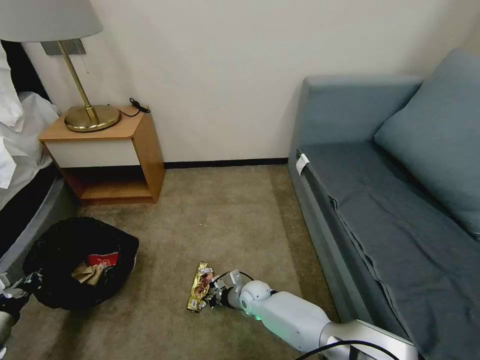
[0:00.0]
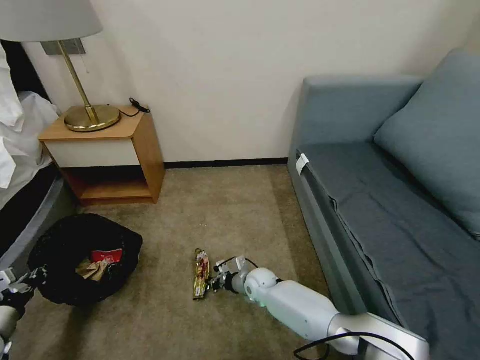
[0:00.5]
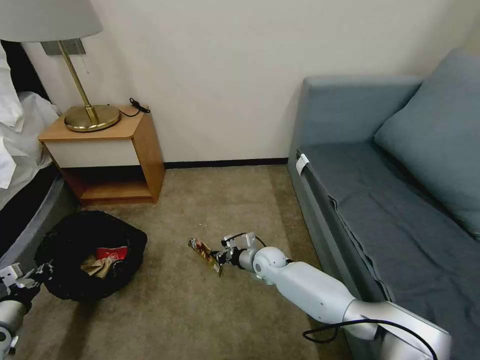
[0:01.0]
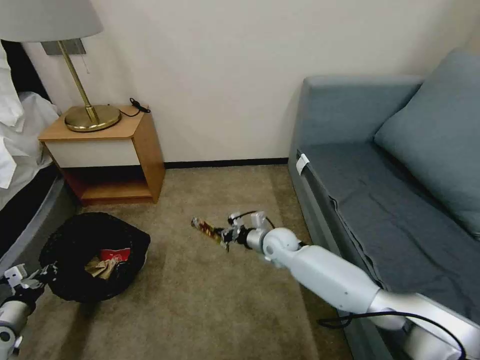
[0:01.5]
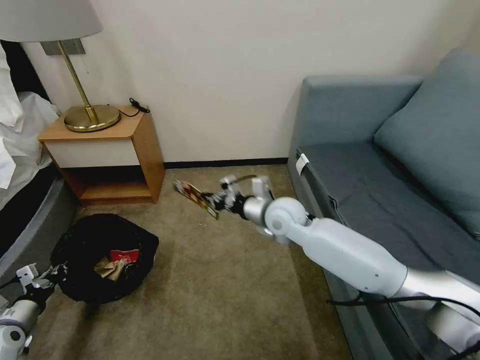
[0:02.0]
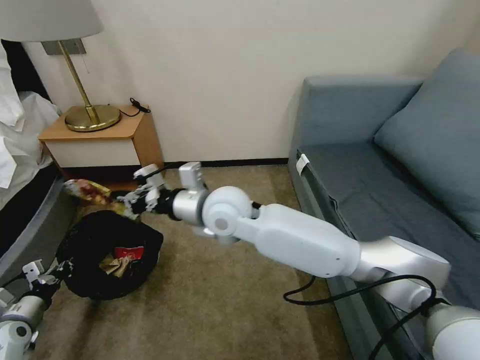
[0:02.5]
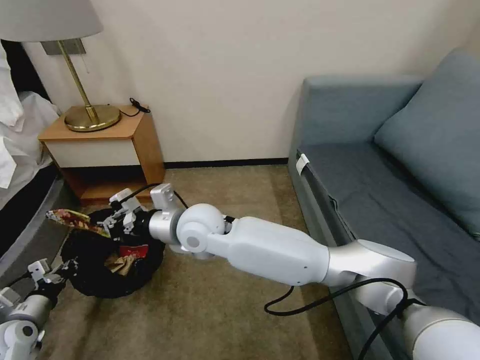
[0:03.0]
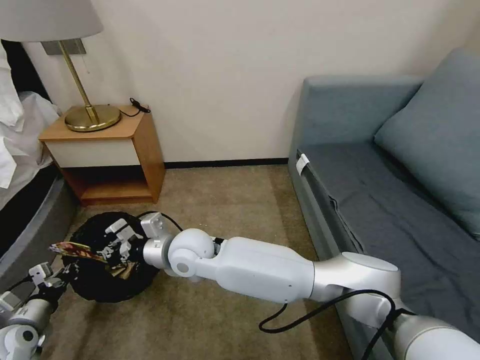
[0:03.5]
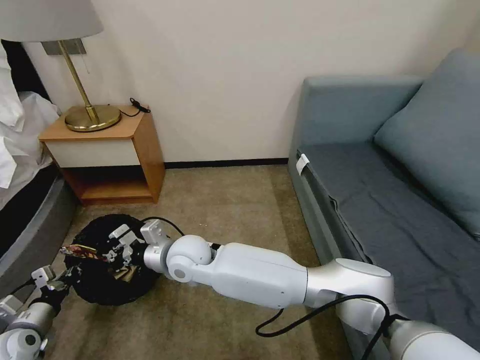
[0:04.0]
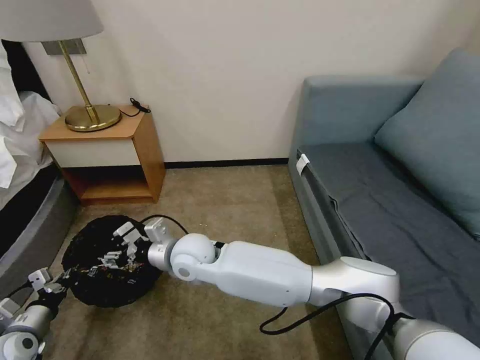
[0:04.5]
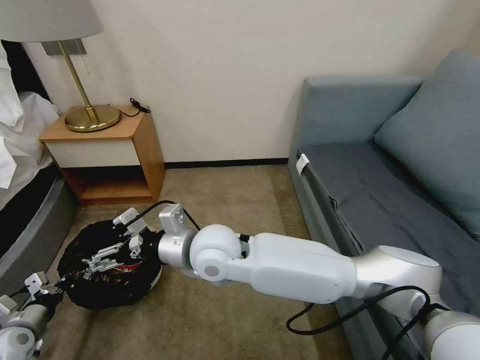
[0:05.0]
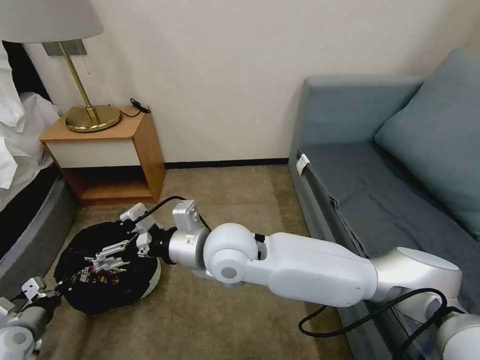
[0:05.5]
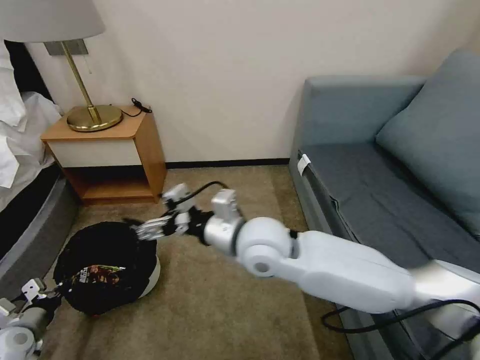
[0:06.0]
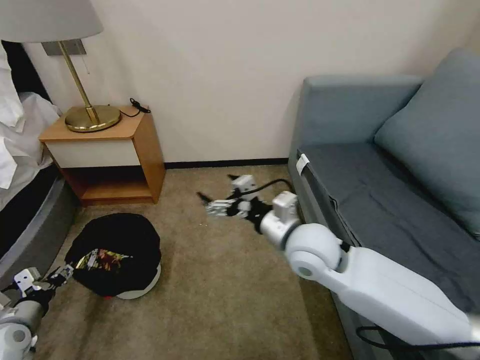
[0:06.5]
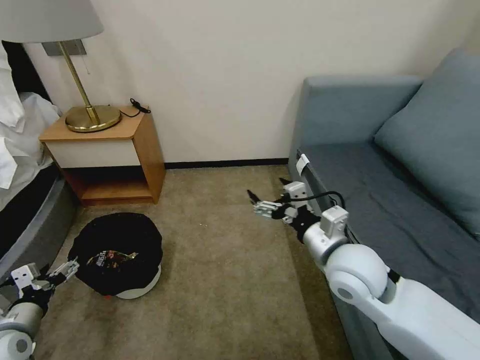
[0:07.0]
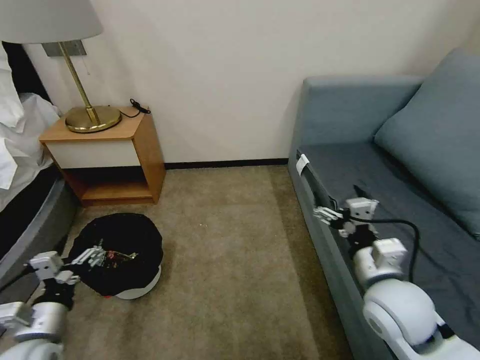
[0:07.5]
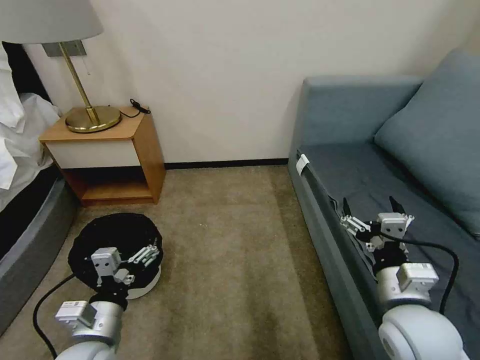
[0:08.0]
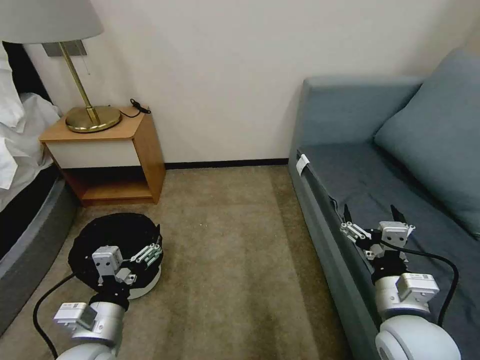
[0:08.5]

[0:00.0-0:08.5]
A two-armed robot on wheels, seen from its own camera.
Task of the whole recording: Pick up the trash bin, then pick up the garbage on the floor and place it into the trash bin.
0:00.0 to 0:02.0: The right gripper goes some 30 cm upward.
0:02.0 to 0:04.0: The right gripper goes approximately 25 cm to the left and backward.
0:04.0 to 0:06.5: The right gripper travels to the right by about 25 cm, and opens; the left gripper opens its fingers.
0:06.5 to 0:08.5: The right gripper heads backward and to the right, covering roughly 20 cm; the left gripper travels to the right by roughly 25 cm, and opens up.

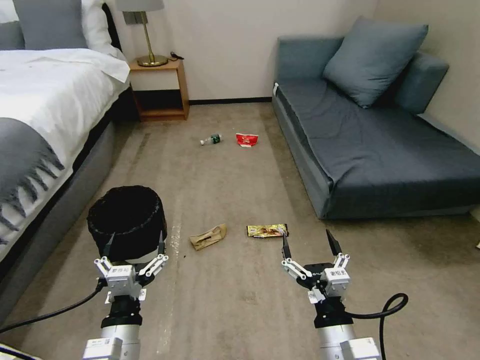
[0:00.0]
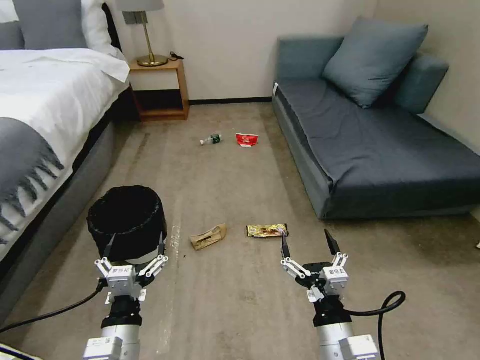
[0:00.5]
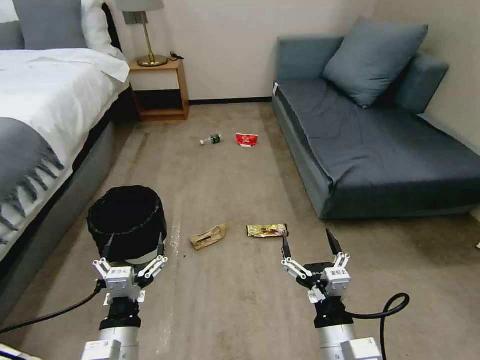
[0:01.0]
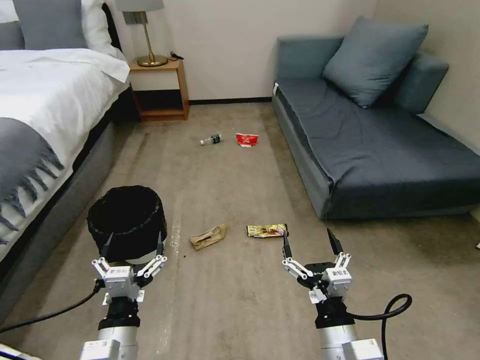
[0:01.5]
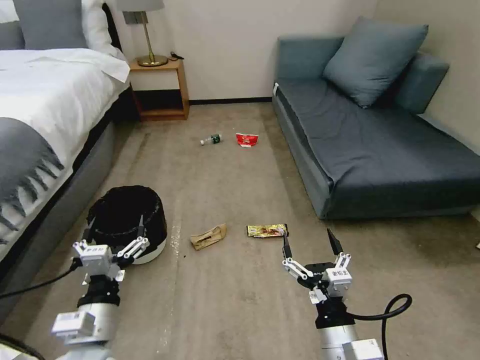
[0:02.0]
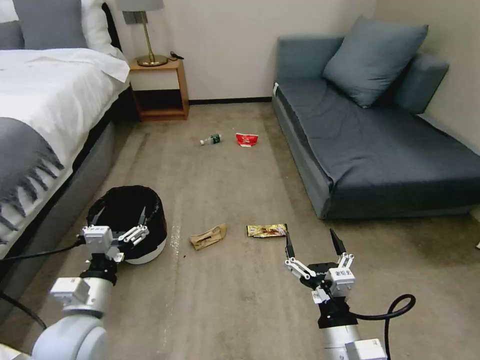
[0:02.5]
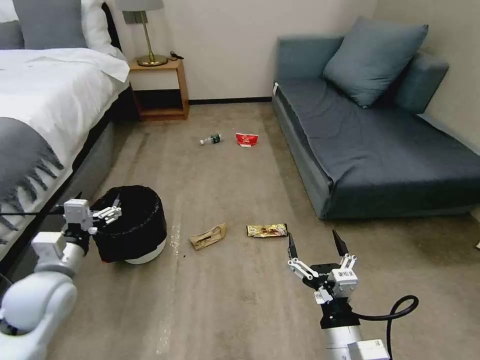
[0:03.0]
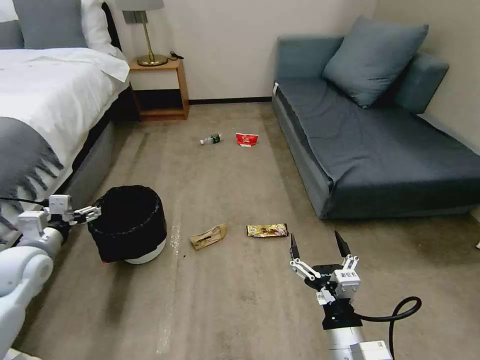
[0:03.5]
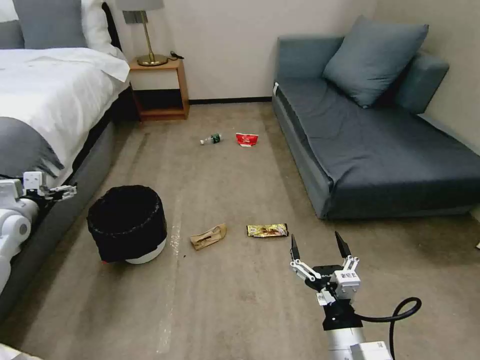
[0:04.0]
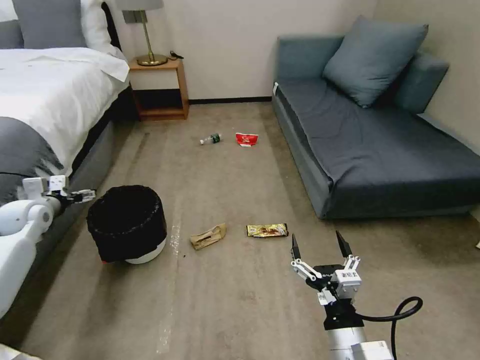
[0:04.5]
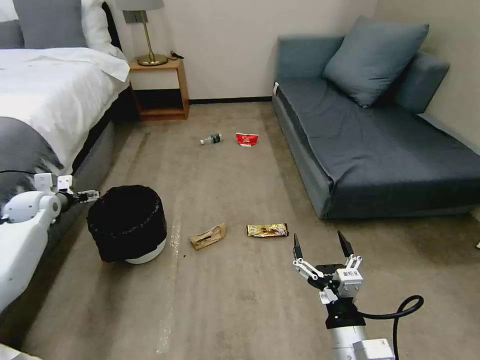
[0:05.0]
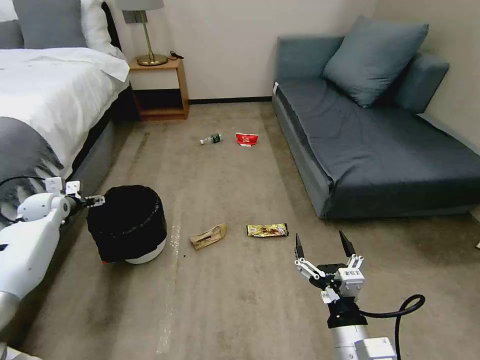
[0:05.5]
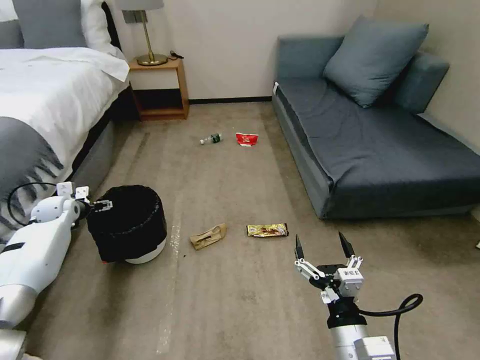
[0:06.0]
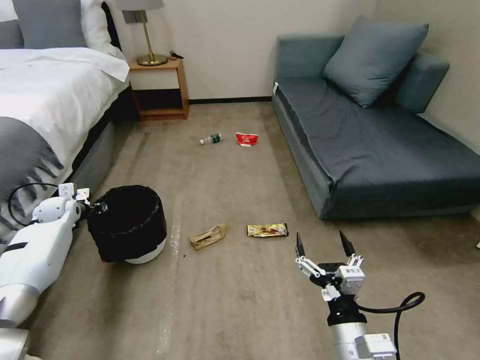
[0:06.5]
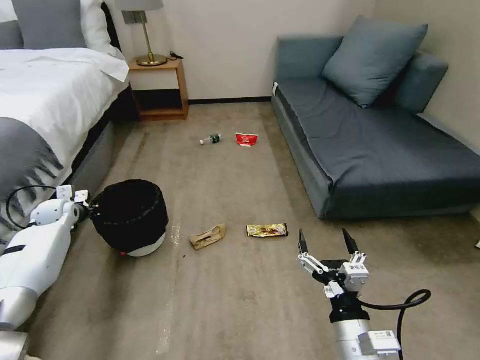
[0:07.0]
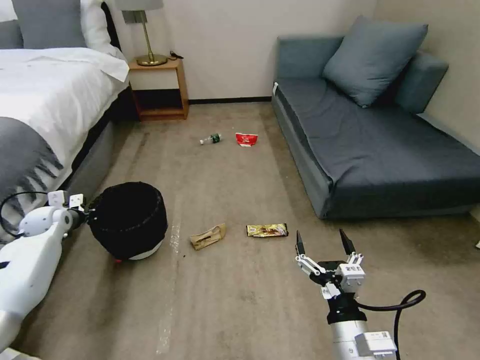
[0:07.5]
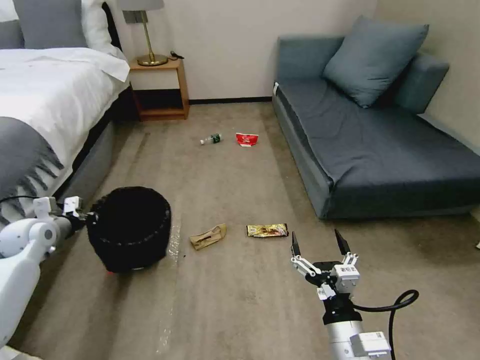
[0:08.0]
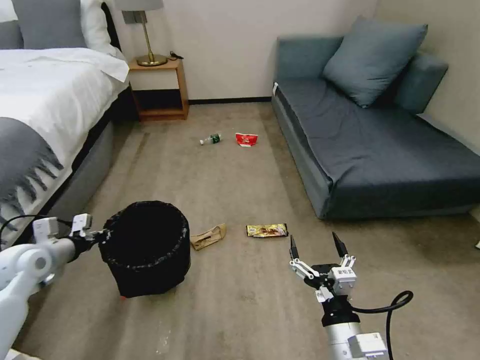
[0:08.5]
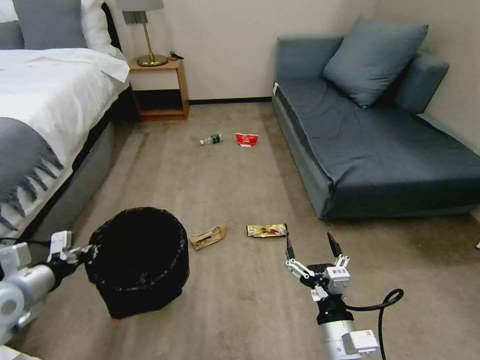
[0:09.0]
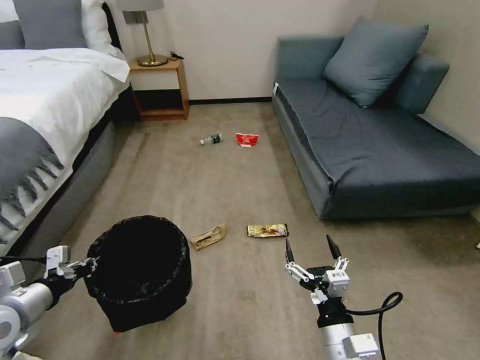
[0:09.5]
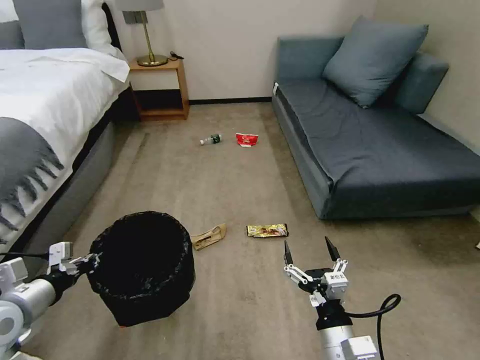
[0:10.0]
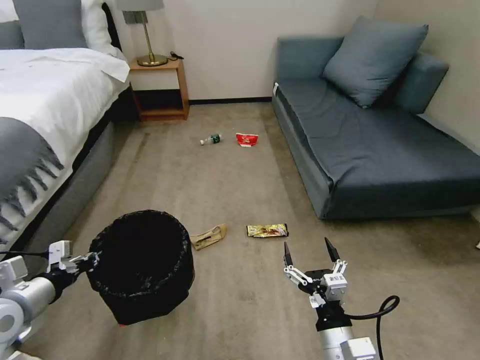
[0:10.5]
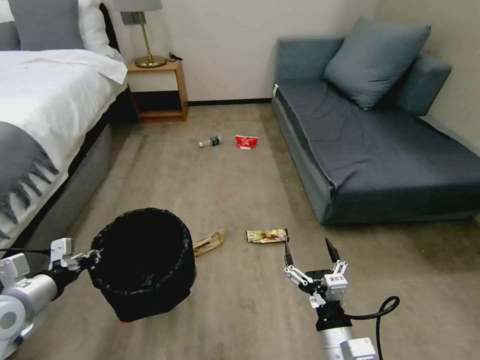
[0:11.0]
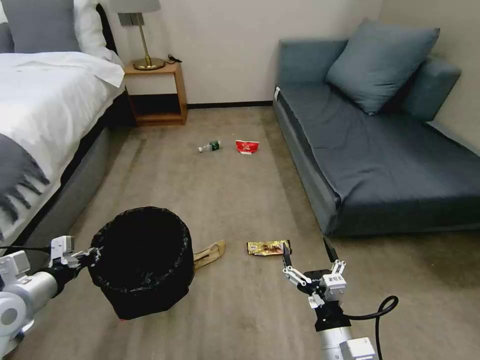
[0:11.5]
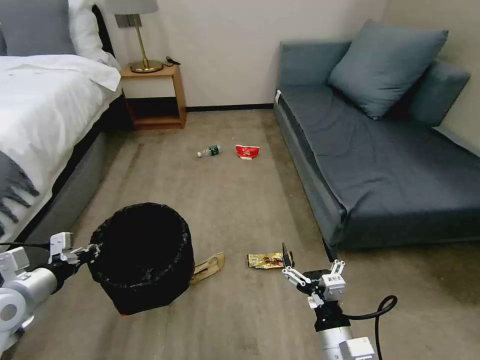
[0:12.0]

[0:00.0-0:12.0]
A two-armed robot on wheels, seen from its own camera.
Task of the whole recording: Pick up the trash bin, then pick up the garbage on the floor and place it into the trash bin.
0:02.0 to 0:04.0: The left gripper goes approximately 40 cm to the left and forward.
0:04.0 to 0:06.0: The left gripper moves forward and downward, approximately 15 cm.
0:06.0 to 0:08.0: The left gripper shifts roughly 10 cm backward, and closes its fingers.
0:08.0 to 0:10.0: The left gripper goes roughly 20 cm backward and to the right.

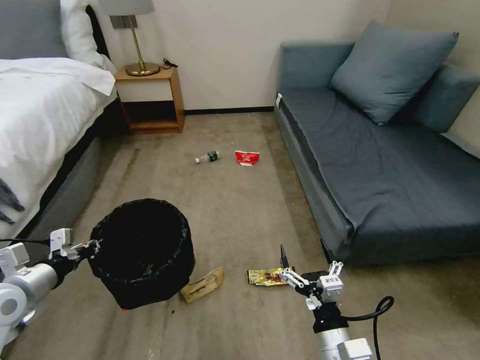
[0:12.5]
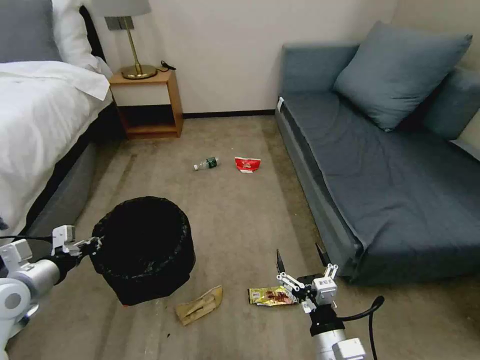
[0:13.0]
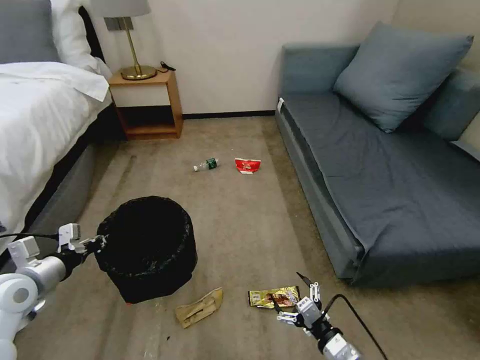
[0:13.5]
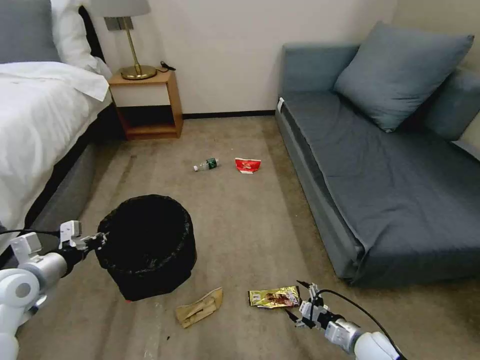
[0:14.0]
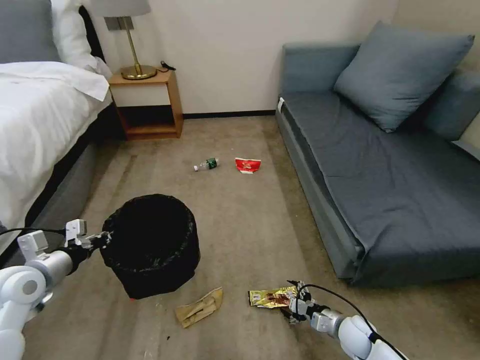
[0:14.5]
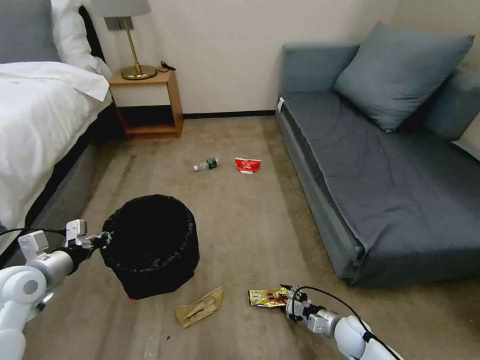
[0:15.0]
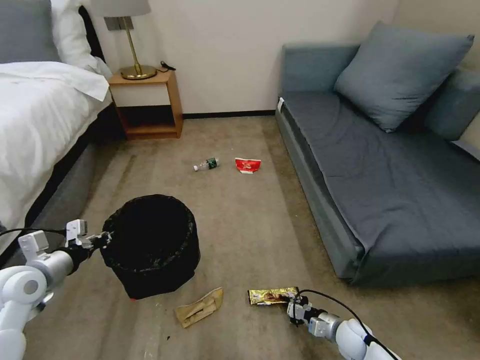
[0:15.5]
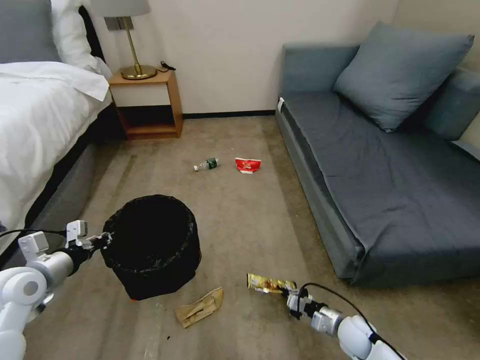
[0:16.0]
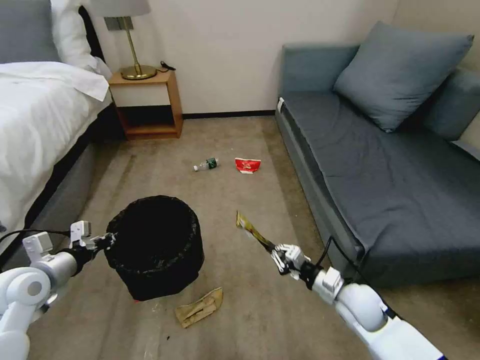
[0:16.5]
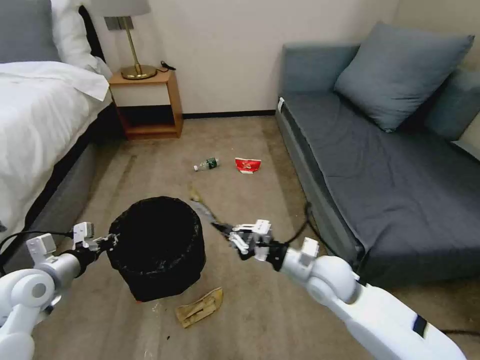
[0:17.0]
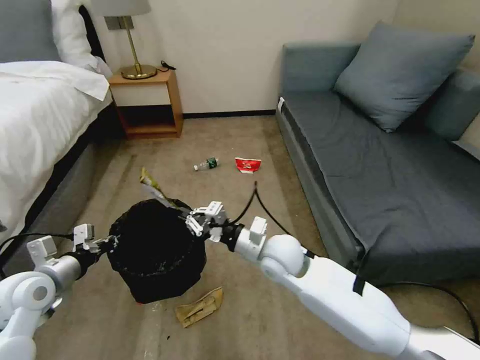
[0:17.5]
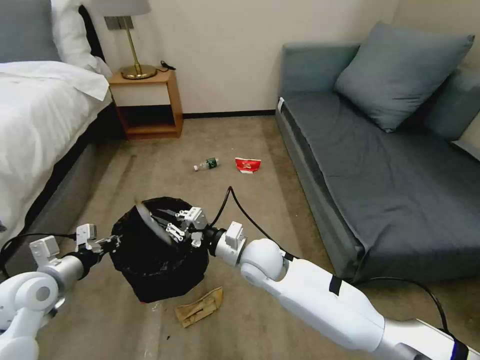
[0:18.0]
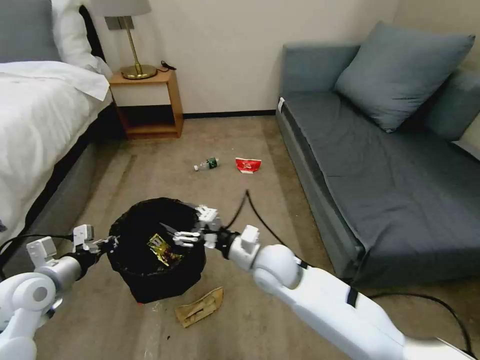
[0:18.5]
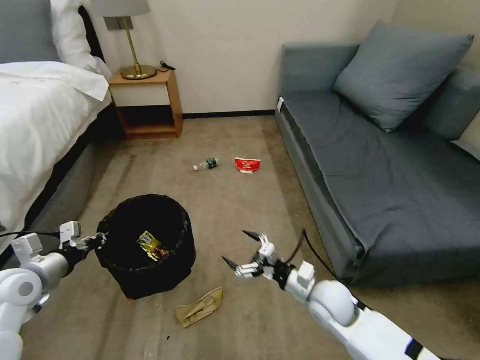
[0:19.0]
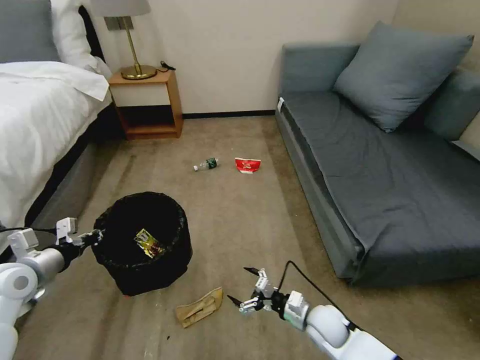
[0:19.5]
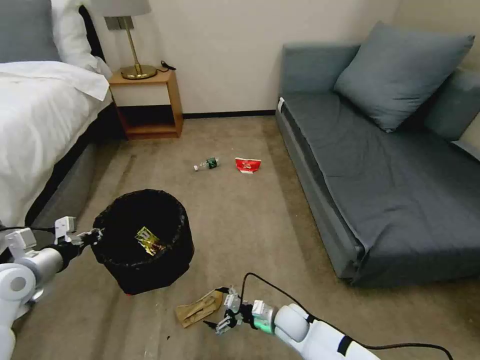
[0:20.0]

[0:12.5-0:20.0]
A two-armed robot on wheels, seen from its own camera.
Task of the whole recording: Pick up the trash bin, then pick up the garbage on the floor and place it into the trash bin.
0:12.5 to 0:14.5: The right gripper shifts some 25 cm downward, to the right and forward.
0:14.5 to 0:16.5: The right gripper moves upward, about 15 cm, and closes.
0:16.5 to 0:18.0: The right gripper is displaced to the left and upward by about 25 cm.
0:18.0 to 0:20.0: The right gripper goes about 25 cm downward and to the right, and opens.
